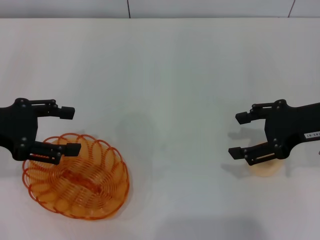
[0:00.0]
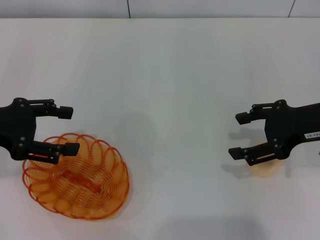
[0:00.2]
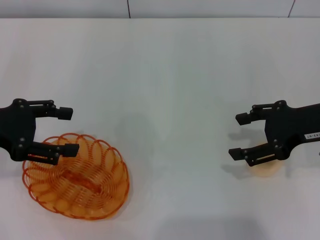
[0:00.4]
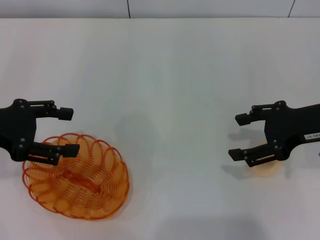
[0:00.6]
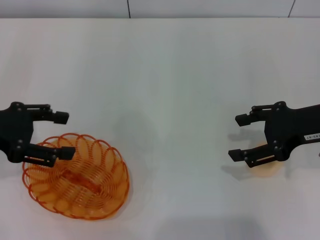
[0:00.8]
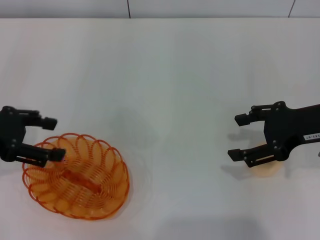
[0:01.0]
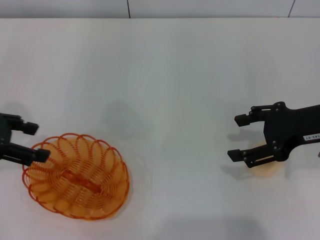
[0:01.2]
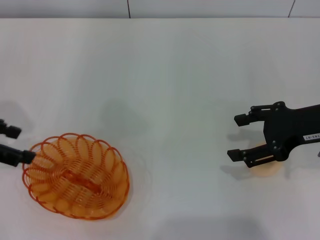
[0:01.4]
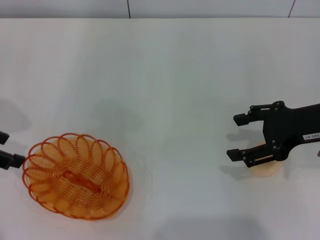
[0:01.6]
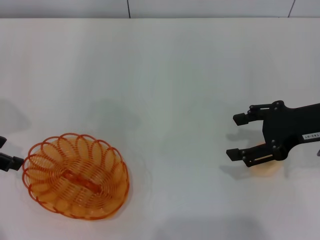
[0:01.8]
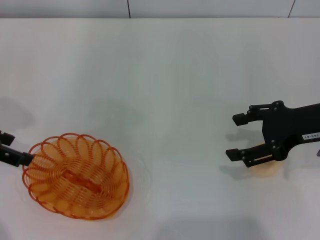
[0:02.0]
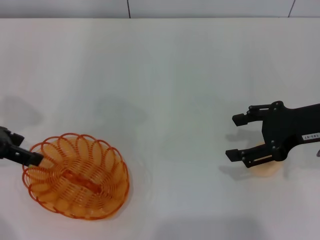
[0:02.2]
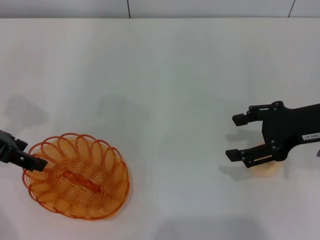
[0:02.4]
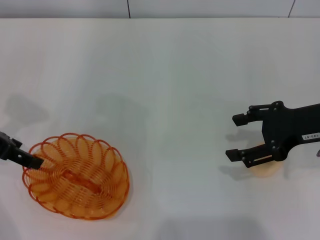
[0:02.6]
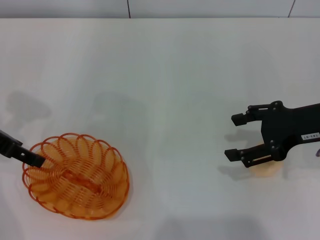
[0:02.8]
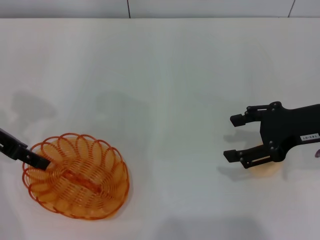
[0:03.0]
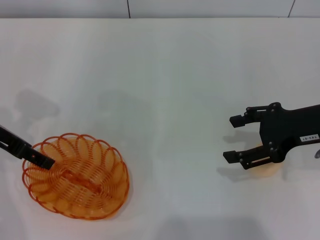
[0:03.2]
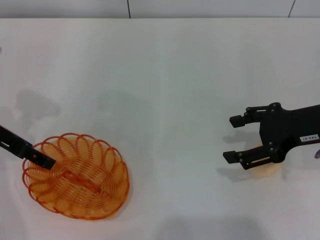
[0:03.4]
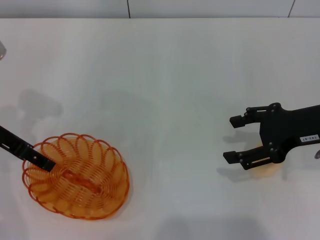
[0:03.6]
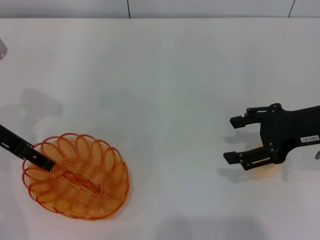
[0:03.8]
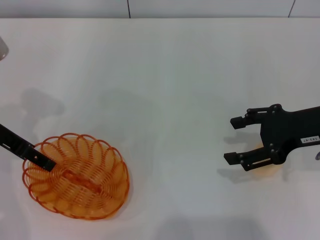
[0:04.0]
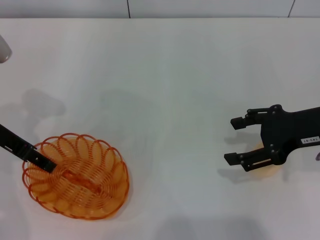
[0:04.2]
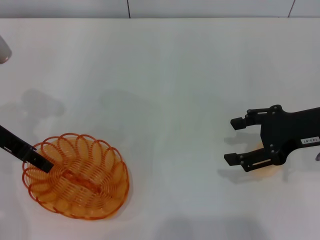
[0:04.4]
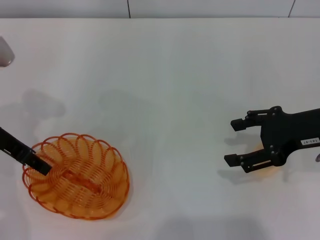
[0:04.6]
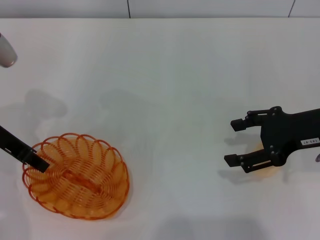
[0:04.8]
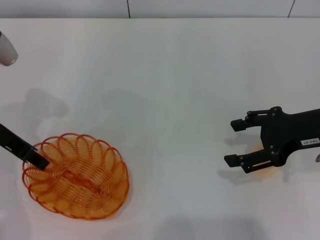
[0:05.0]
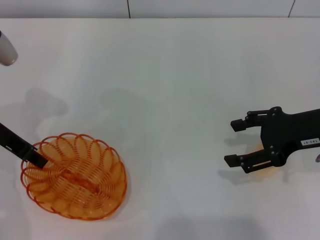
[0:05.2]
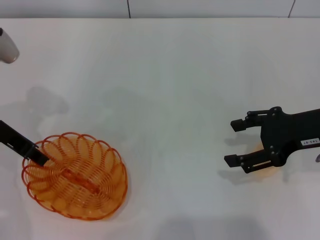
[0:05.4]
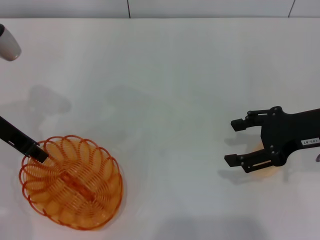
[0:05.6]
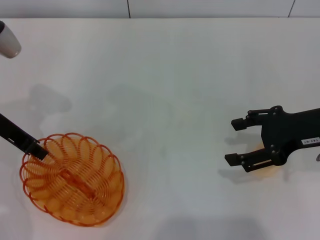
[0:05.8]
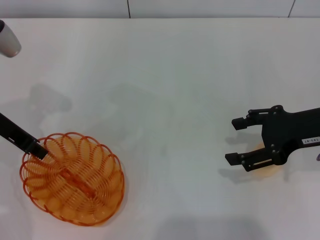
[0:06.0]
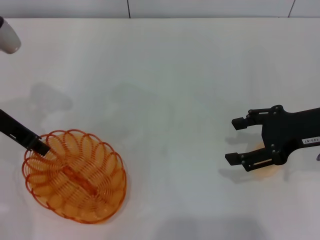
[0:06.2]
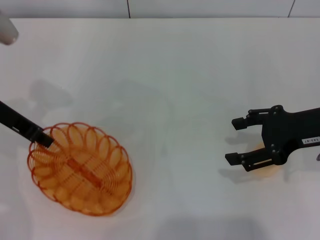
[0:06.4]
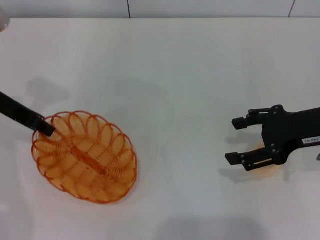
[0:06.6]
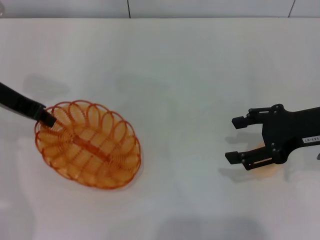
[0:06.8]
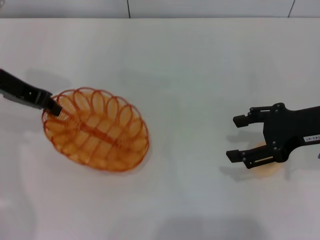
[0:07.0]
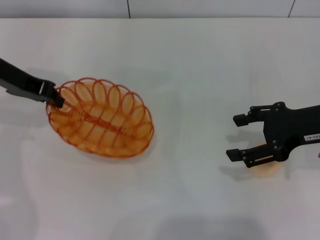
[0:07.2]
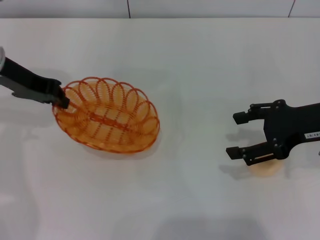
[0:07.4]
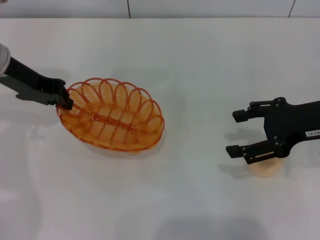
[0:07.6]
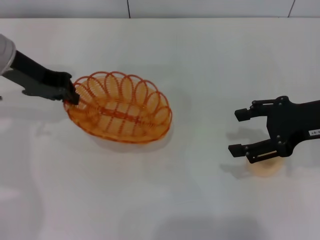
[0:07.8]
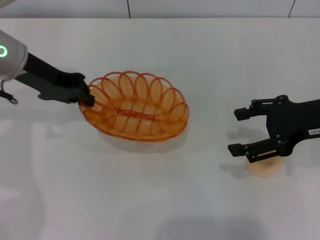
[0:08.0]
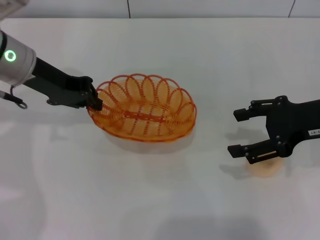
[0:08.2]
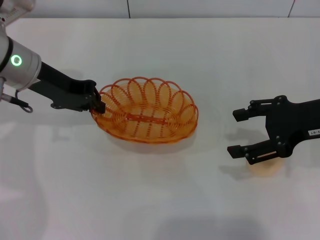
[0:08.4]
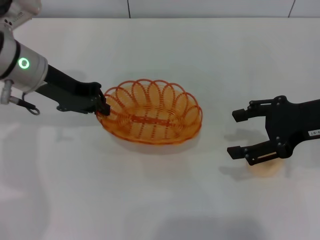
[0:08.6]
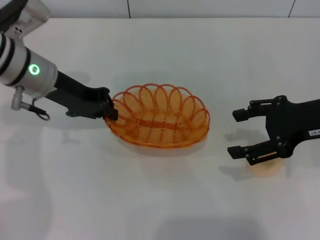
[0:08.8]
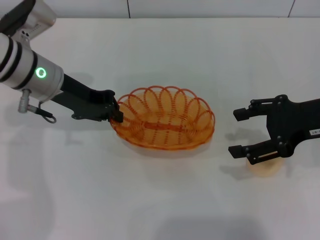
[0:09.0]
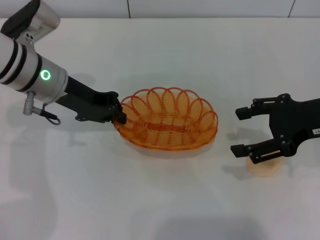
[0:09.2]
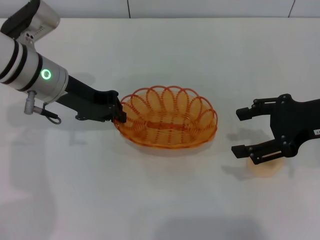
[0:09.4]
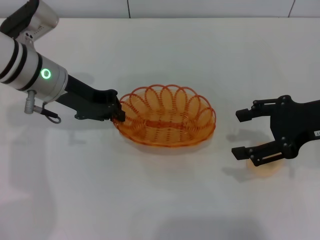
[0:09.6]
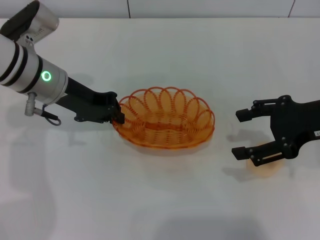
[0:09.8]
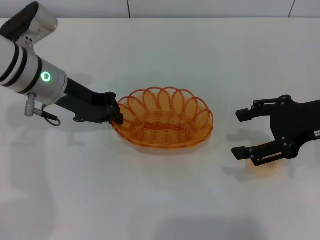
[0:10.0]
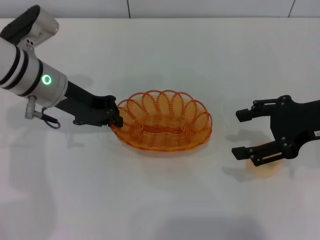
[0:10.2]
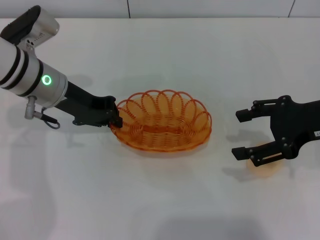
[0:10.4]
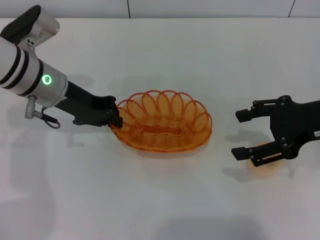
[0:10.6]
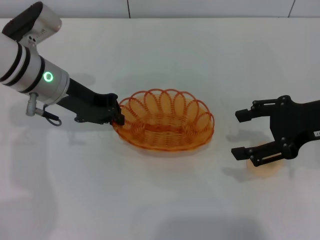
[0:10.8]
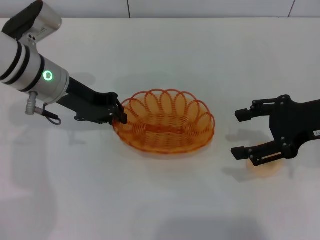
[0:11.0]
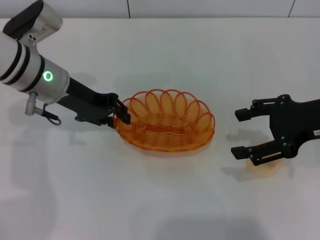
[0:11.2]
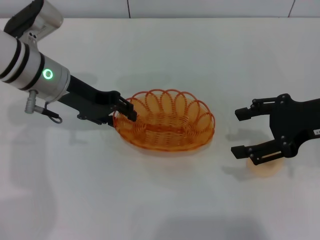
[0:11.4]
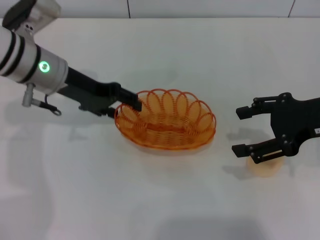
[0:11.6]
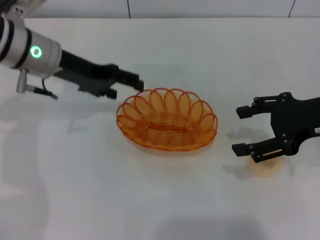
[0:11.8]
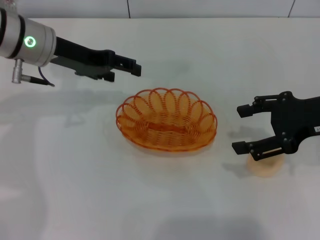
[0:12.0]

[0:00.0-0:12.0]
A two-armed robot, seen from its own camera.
Step, 0:00.0 to 0:06.6: Pick up the basket with the left gripper.
0:01.6 to 0:03.0: The left gripper ends up roughly 5 cm from where it was.
0:03.0 to 0:04.4: The grippers move only a little.
0:04.4 to 0:06.0: The left gripper closes up.
0:07.6 to 0:09.0: The left gripper travels to the right by about 5 cm.
0:09.0 to 0:10.4: Both grippers stay put.
0:10.4 to 0:12.0: The left gripper changes place by roughly 5 cm, and opens.

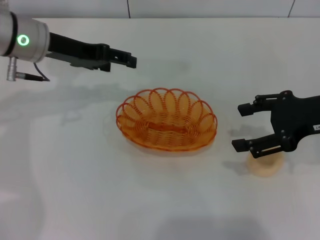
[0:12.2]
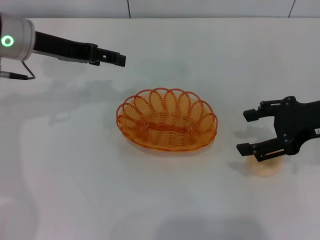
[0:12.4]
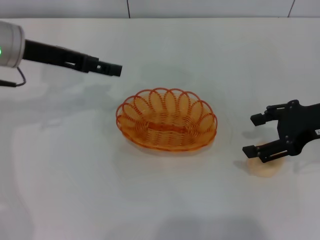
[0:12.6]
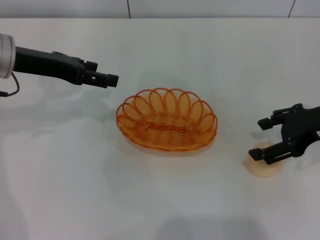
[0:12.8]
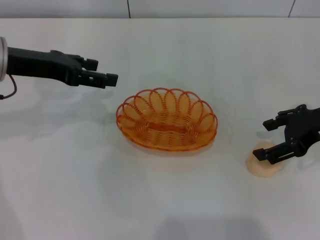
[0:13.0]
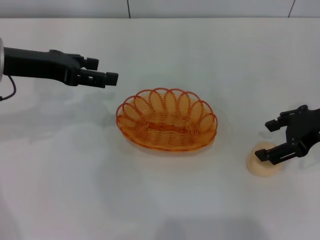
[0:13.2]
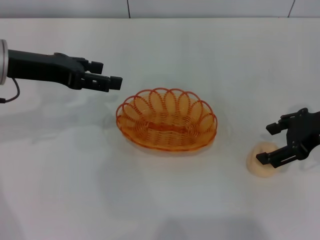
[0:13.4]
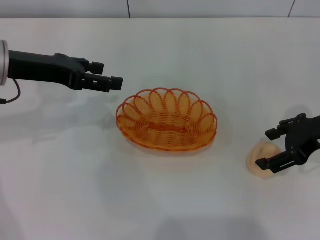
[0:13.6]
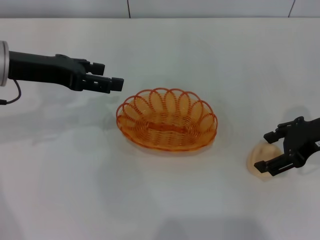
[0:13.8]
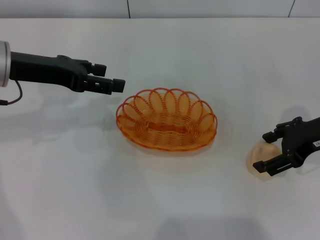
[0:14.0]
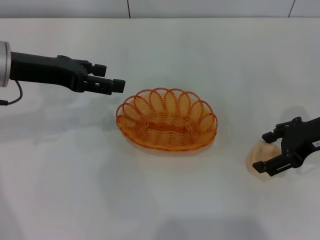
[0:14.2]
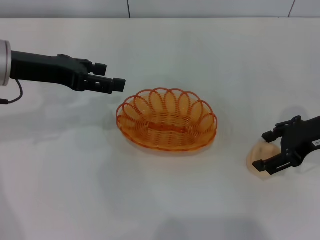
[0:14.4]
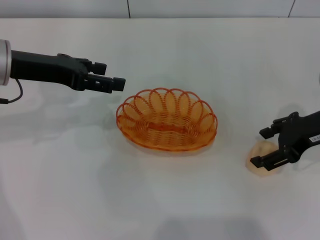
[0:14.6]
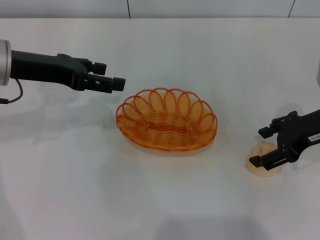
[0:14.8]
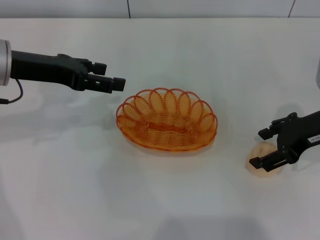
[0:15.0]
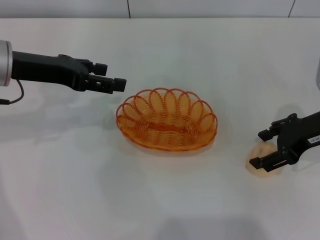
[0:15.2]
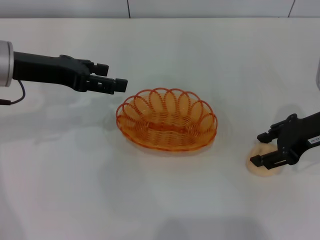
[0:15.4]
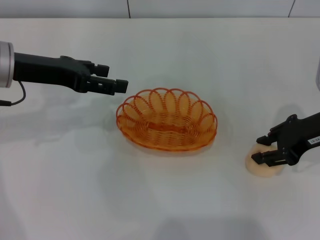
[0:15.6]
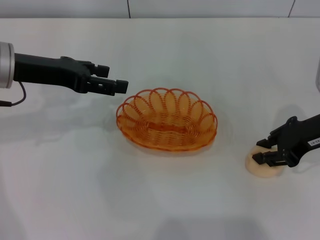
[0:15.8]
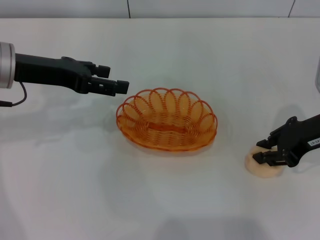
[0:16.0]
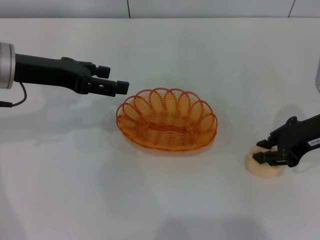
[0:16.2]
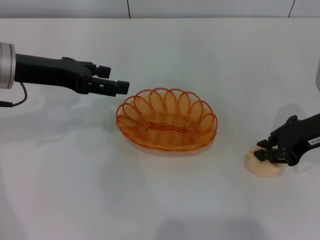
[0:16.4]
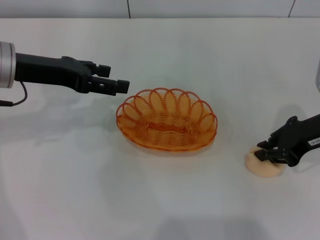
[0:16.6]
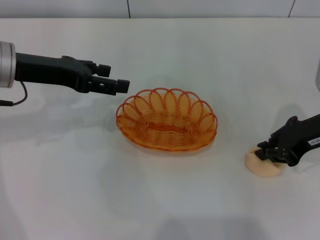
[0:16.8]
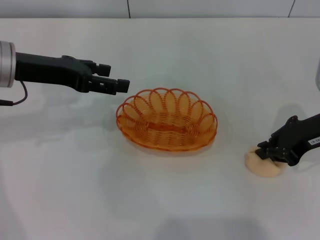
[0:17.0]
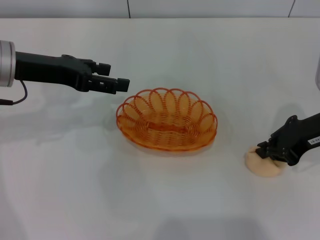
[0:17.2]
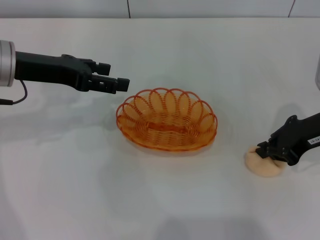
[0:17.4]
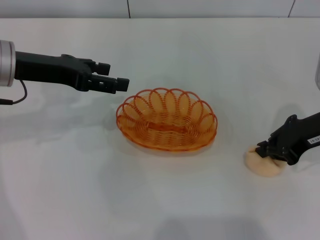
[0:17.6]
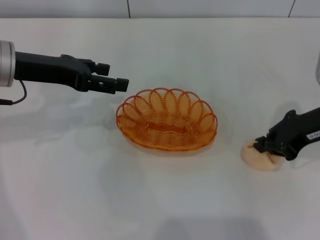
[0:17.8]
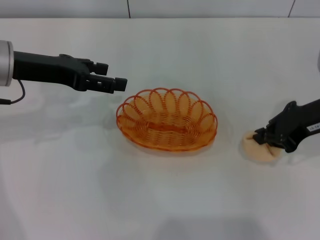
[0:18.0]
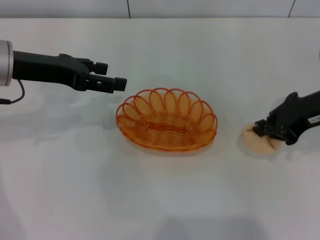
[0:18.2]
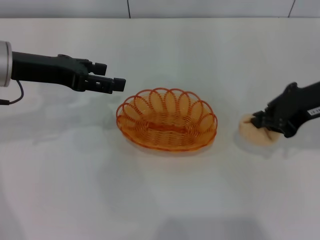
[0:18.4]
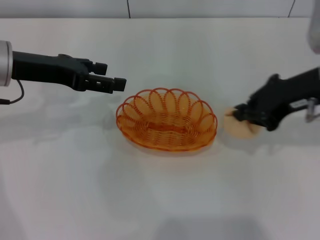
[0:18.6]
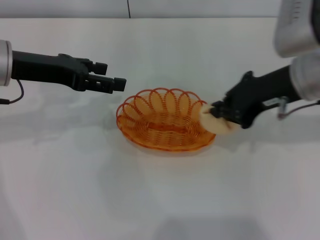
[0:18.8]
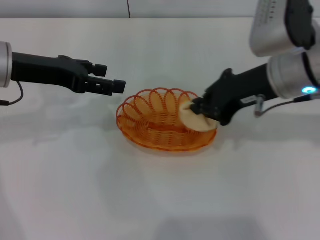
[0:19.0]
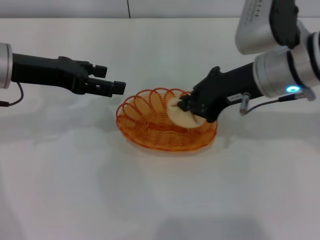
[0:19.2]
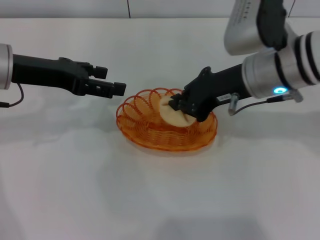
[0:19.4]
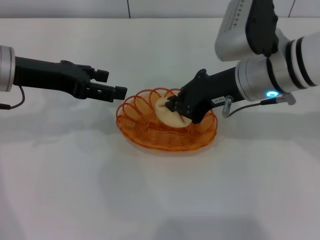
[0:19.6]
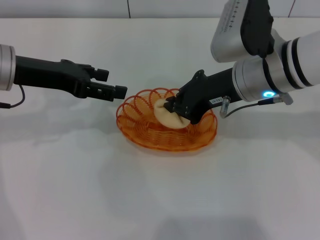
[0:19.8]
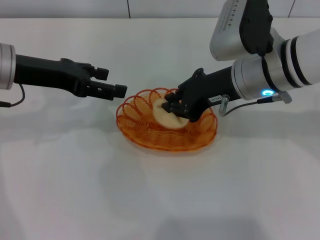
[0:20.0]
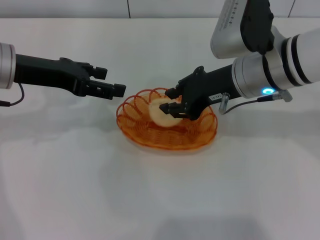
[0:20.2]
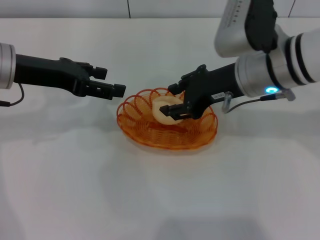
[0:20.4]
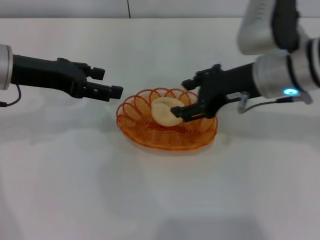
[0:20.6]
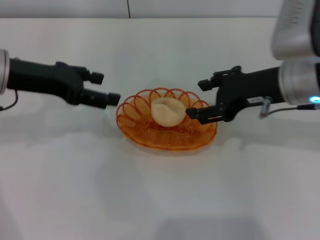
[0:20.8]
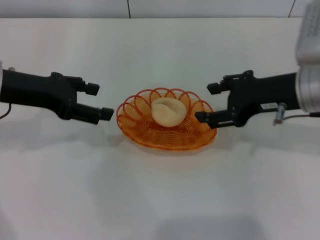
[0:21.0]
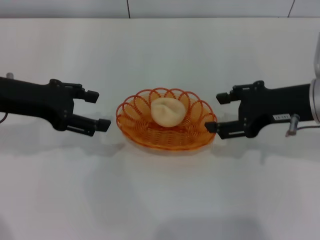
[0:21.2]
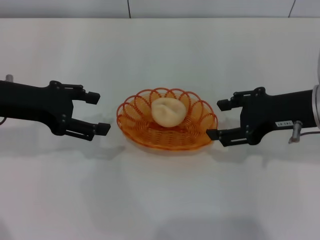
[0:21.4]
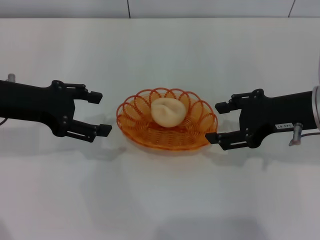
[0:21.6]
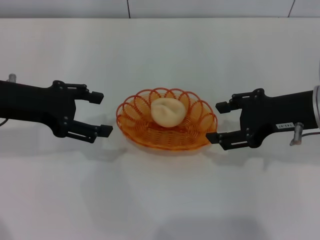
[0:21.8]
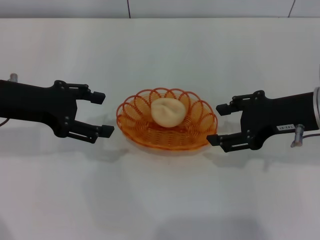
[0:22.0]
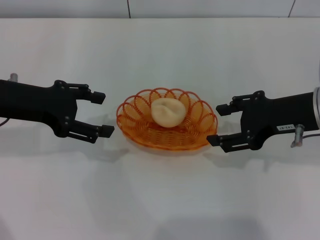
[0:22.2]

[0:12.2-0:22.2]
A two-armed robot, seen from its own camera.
Step, 0:12.2 to 0:18.4: Pick up the egg yolk pastry with the right gripper.
Step, 0:18.6 to 0:20.8: Place the egg yolk pastry into the basket with the right gripper.
0:12.2 to 0:13.6: The left gripper travels backward by about 5 cm.
0:13.6 to 0:15.0: The grippers move only a little.
0:15.0 to 0:16.4: The right gripper closes its fingers.
0:16.4 to 0:18.0: The grippers make only small movements.
0:18.0 to 0:19.4: The right gripper goes about 10 cm to the left.
0:19.4 to 0:20.8: The right gripper opens up.
